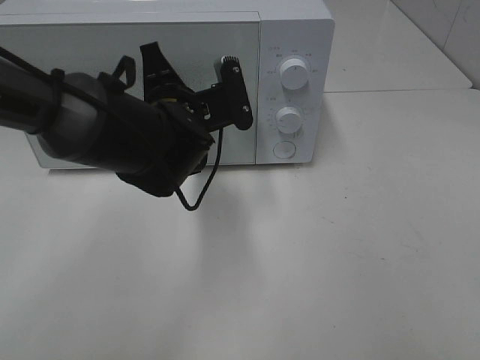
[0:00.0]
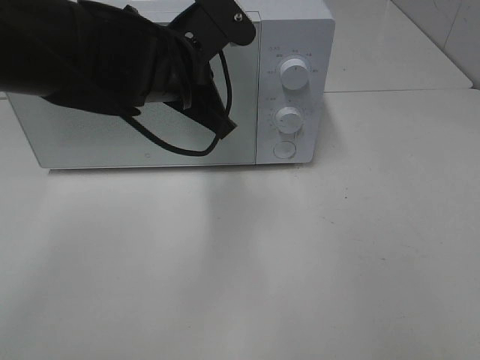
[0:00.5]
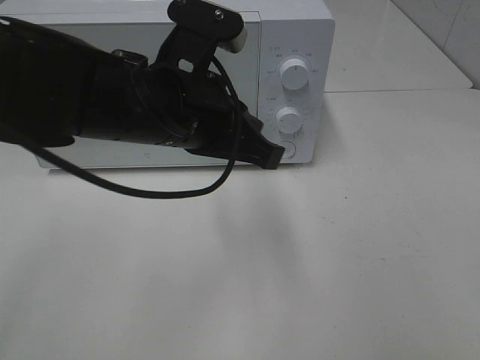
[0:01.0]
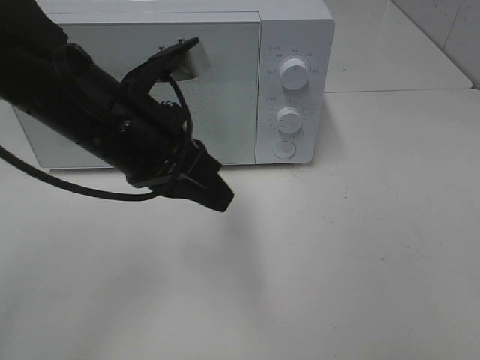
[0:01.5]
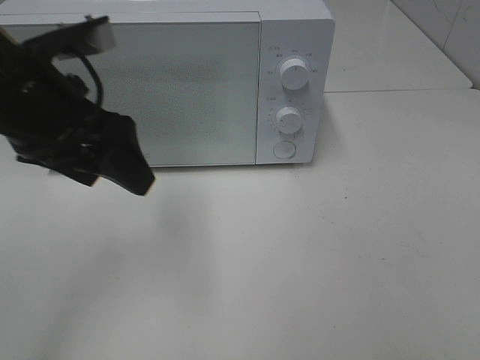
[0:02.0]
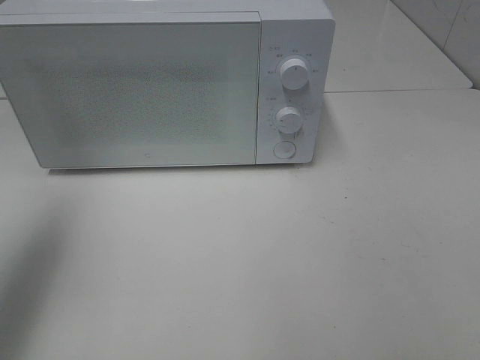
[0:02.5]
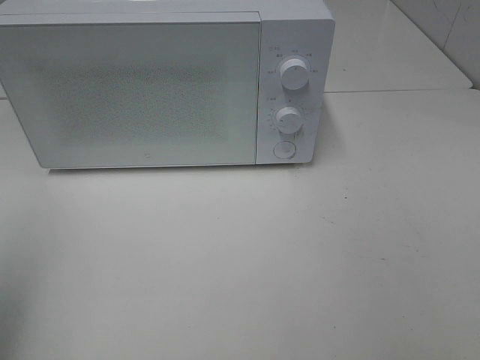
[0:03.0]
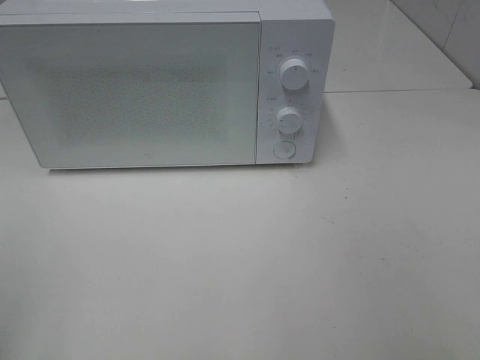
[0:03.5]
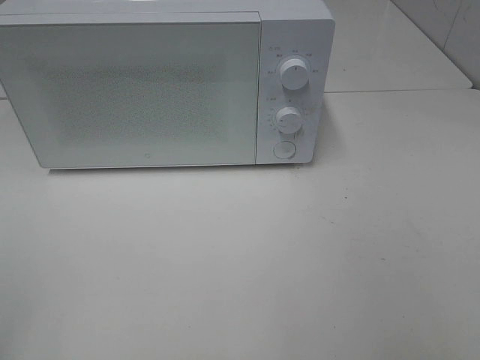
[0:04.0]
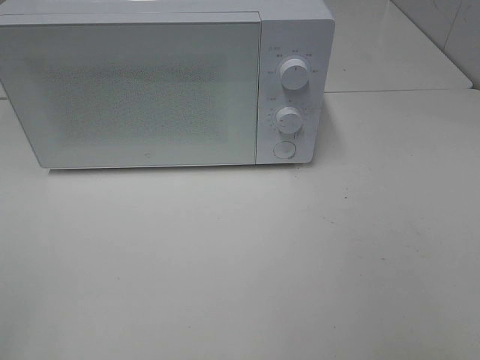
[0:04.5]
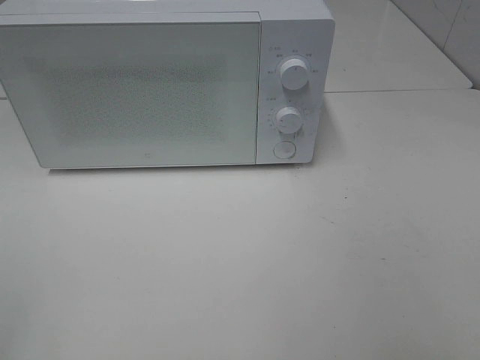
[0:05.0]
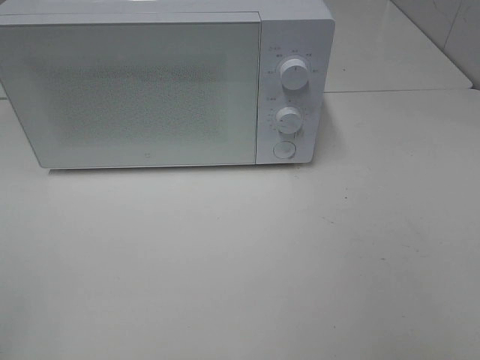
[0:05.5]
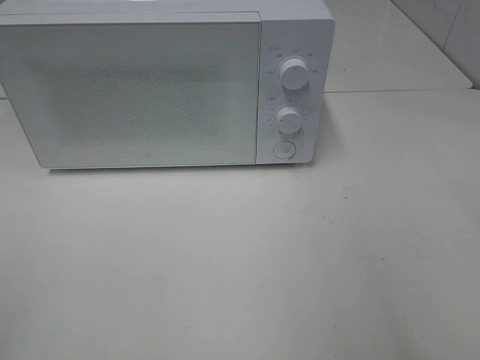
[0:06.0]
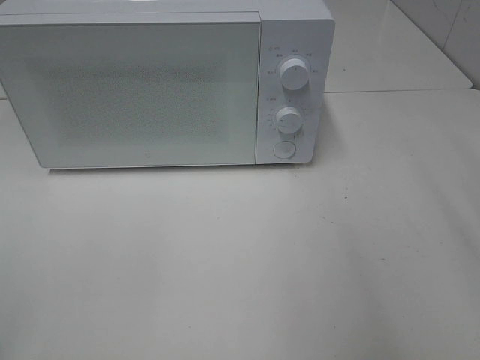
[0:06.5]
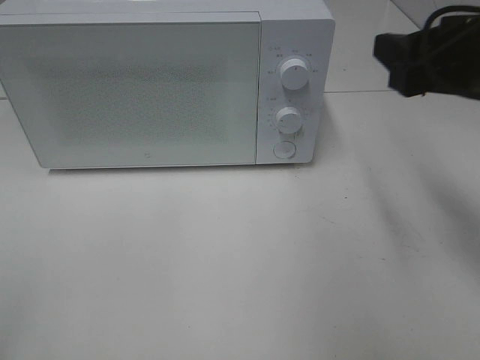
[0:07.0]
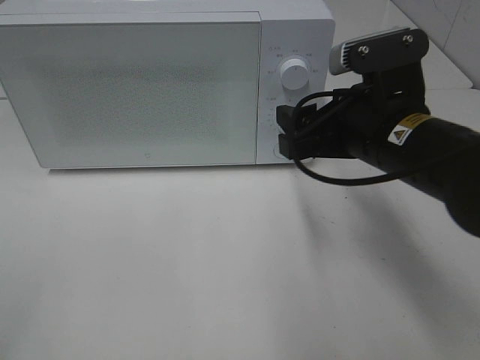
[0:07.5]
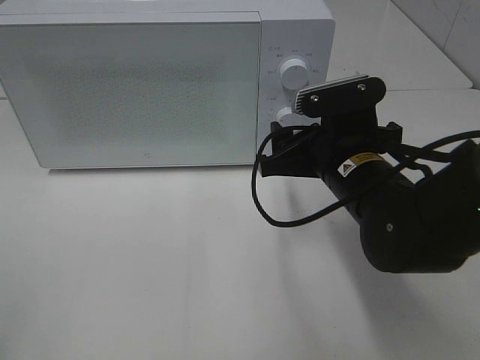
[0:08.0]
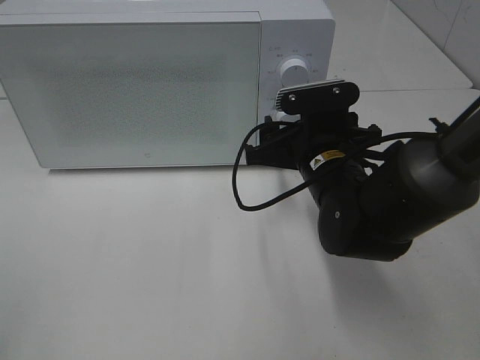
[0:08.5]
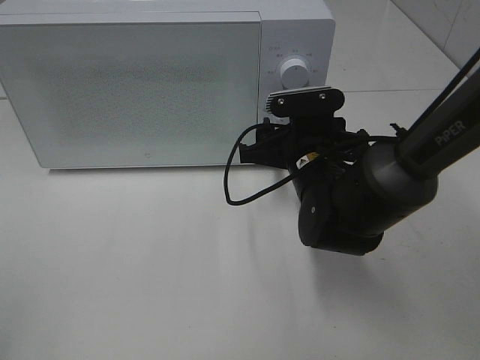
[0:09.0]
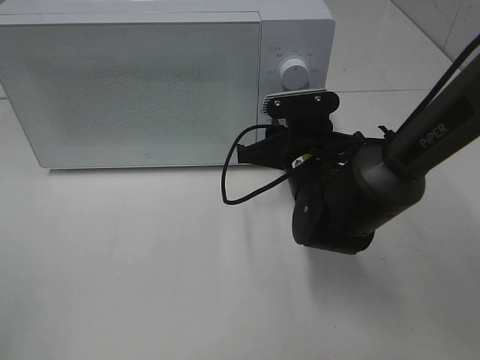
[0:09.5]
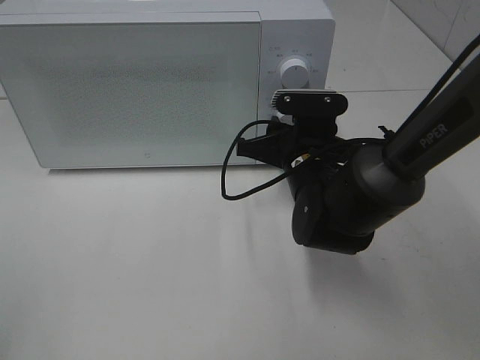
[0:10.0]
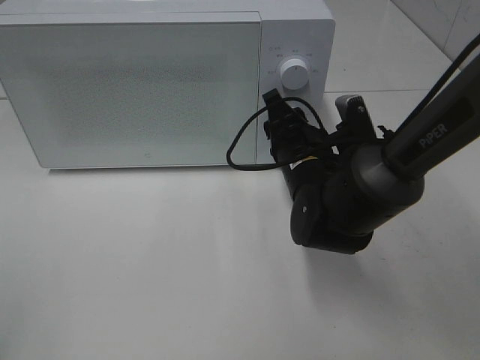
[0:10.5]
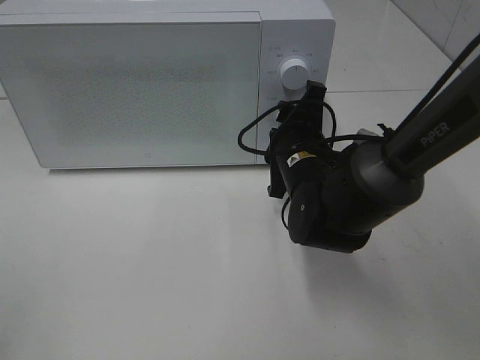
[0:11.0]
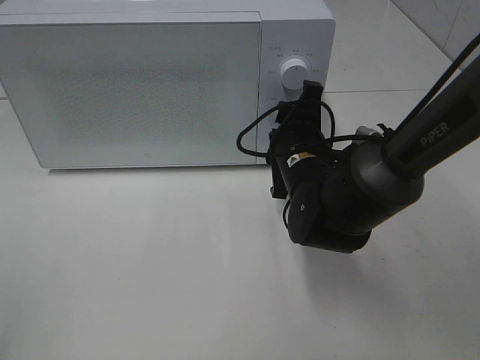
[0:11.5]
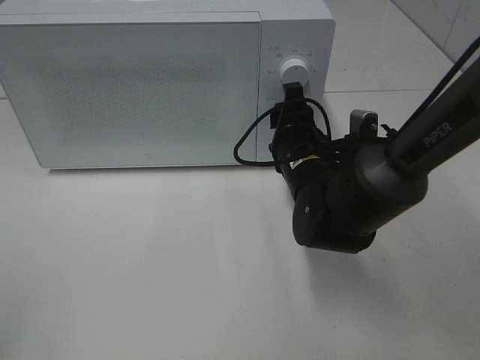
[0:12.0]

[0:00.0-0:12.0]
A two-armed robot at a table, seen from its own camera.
Task of the whole recording: Heat Sandwich.
0:00.0 to 0:02.0: The left gripper goes about 15 cm upward, to the left and backward, and opens its fingers.
0:02.0 to 0:04.0: The left gripper travels backward and to the left by roughly 30 cm.
0:06.0 to 0:08.0: The right gripper moves forward, downward and to the left, roughly 30 cm.
0:08.0 to 0:10.0: The right gripper goes roughly 5 cm forward, and closes its fingers.

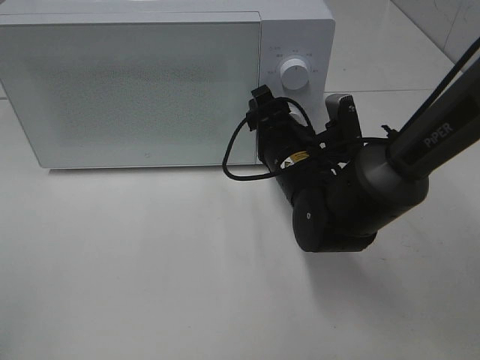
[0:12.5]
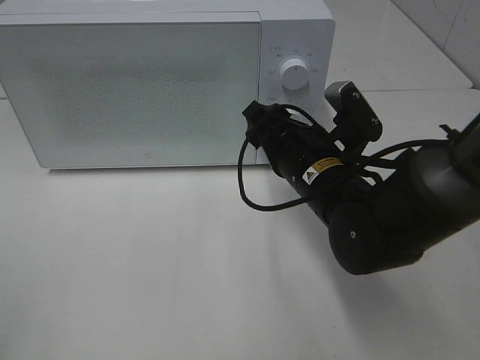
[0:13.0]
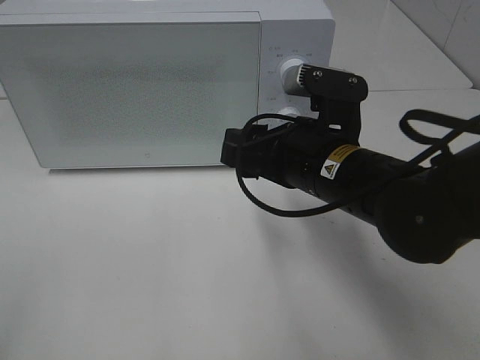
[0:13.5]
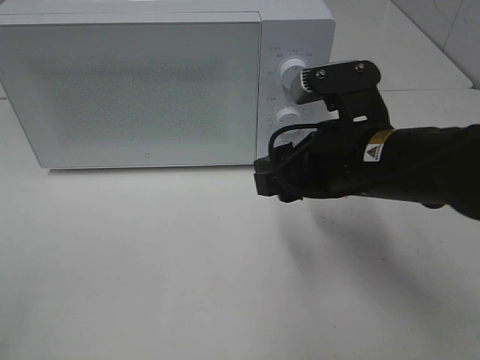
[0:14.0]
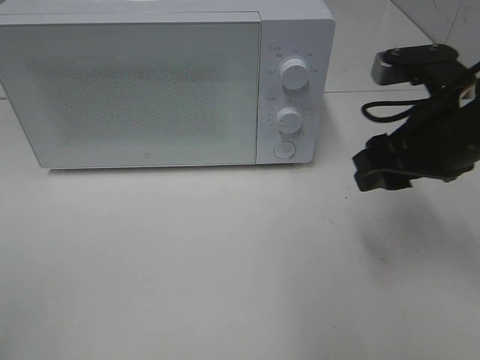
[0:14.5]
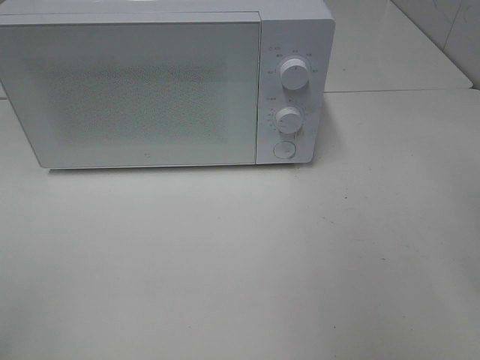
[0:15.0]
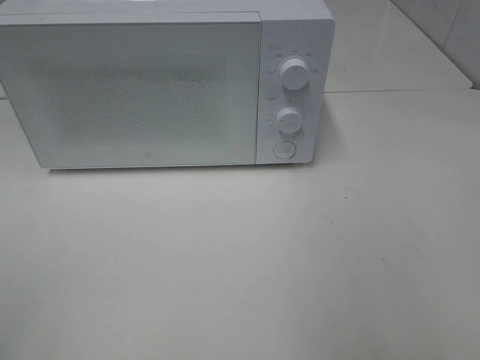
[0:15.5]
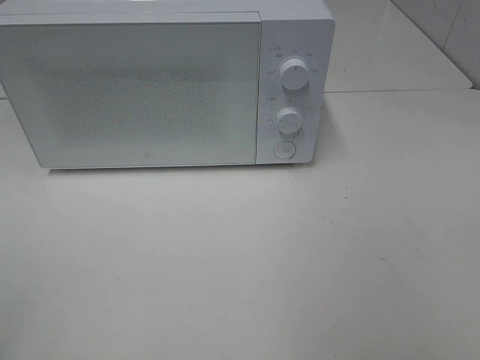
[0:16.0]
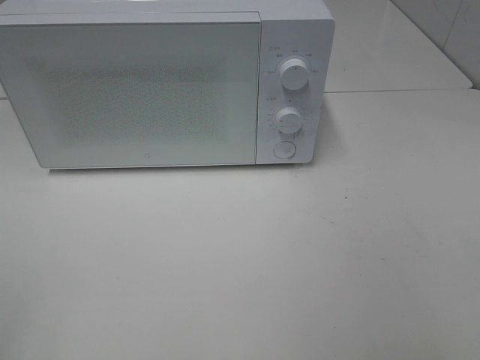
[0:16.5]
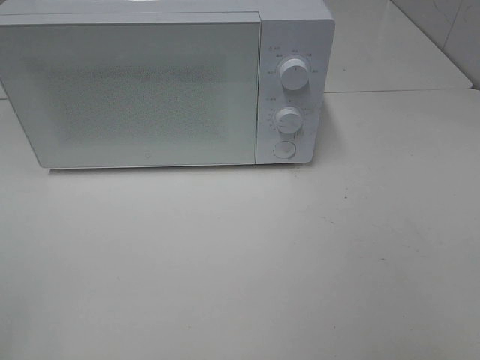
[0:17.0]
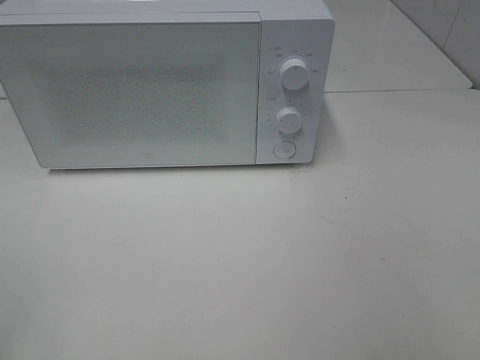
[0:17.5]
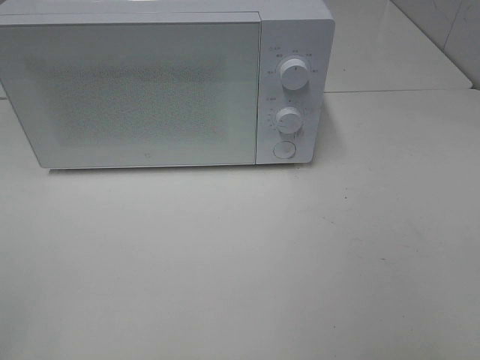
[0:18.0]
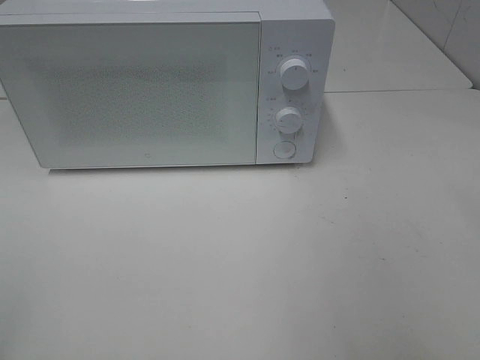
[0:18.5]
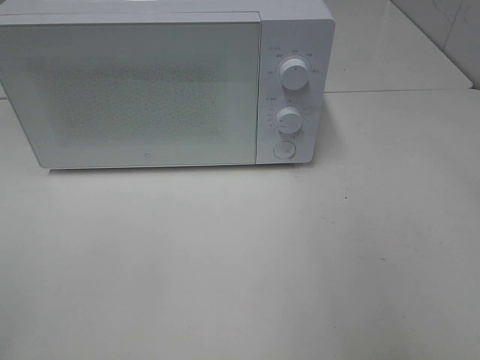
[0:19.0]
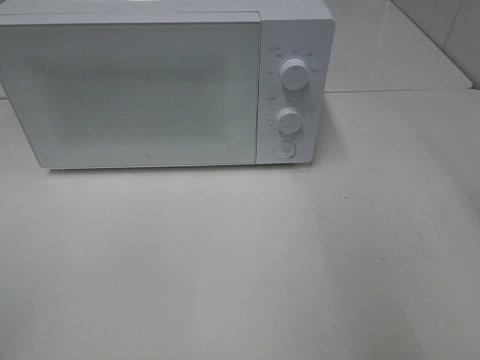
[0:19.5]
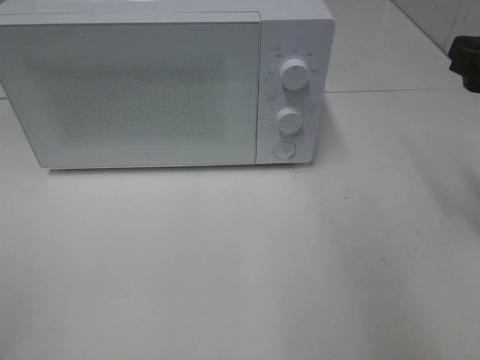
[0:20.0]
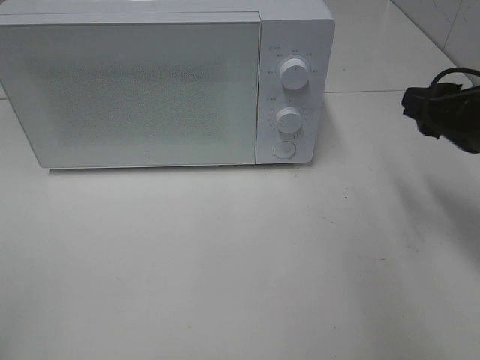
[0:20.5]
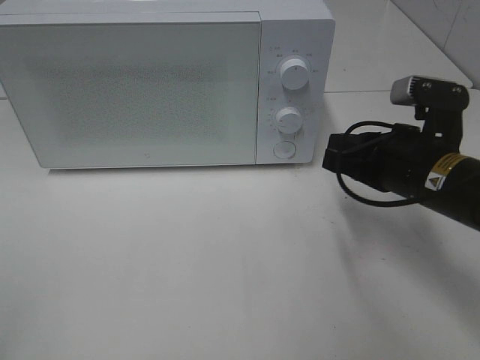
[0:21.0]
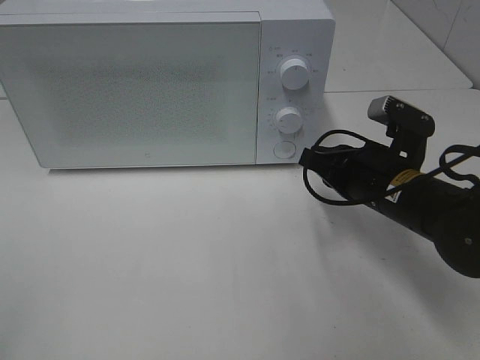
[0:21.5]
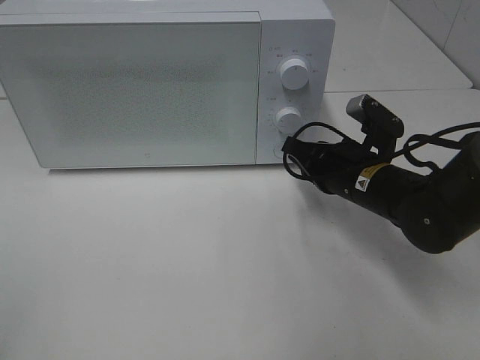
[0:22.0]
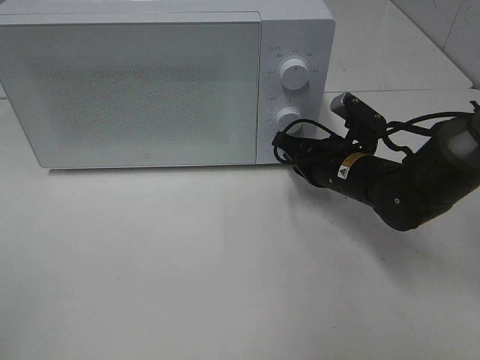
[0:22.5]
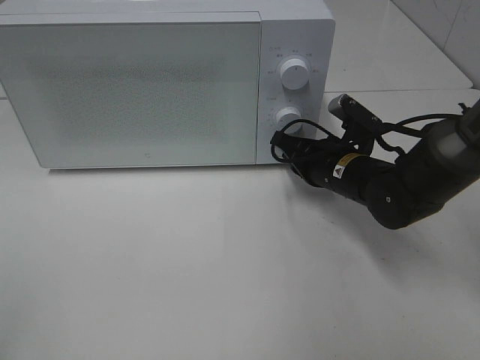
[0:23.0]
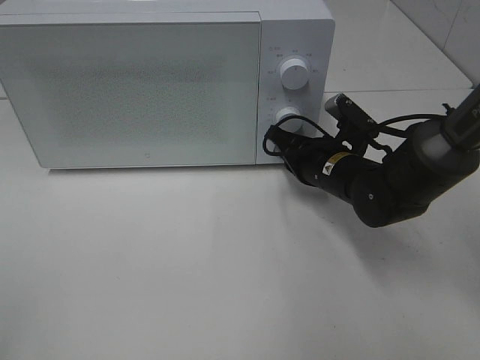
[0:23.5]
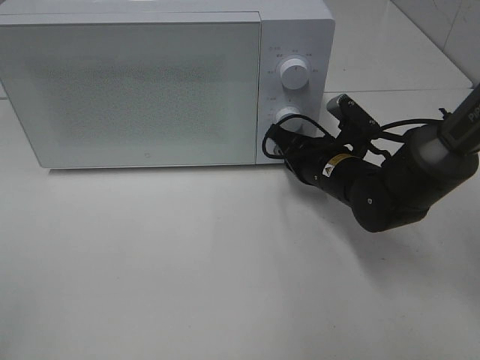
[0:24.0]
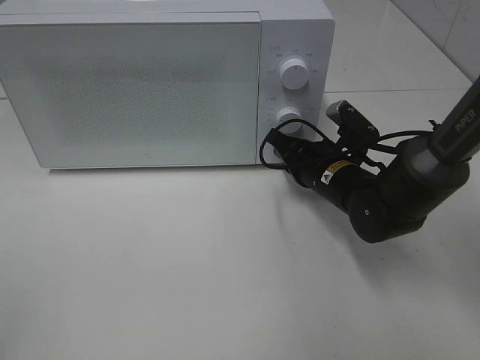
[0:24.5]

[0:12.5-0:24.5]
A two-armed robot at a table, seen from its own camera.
Task of the whole recording: Heat Sandwich.
0:12.5 to 0:14.5: The right gripper shifts approximately 20 cm to the right, upward and backward.
0:14.5 to 0:16.5: The right gripper is displaced backward by roughly 25 cm.
0:18.5 to 0:20.5: The right gripper shifts roughly 20 cm forward and downward.
0:20.5 to 0:22.5: The right gripper heads downward, to the left and forward, covering roughly 20 cm, and closes its fingers.
0:22.5 to 0:24.5: The grippers move only a little.

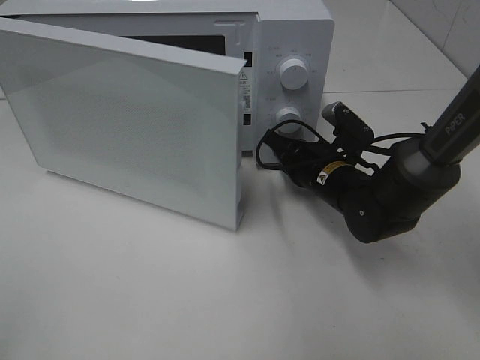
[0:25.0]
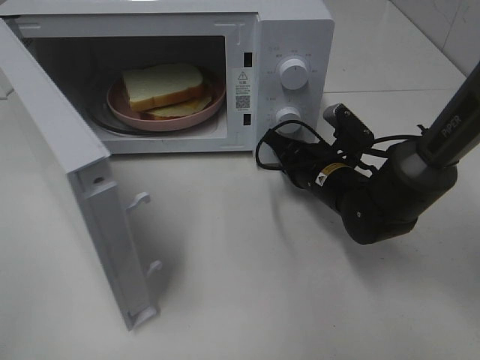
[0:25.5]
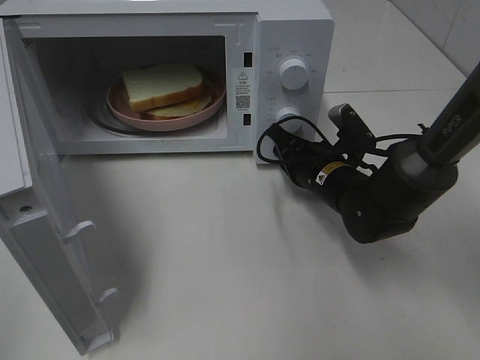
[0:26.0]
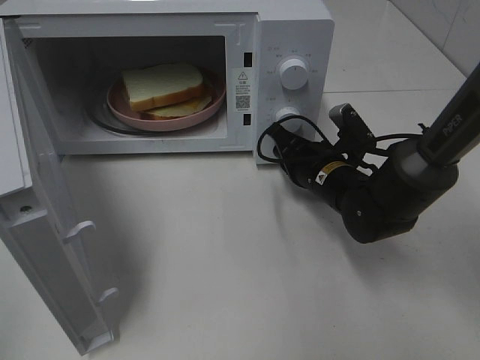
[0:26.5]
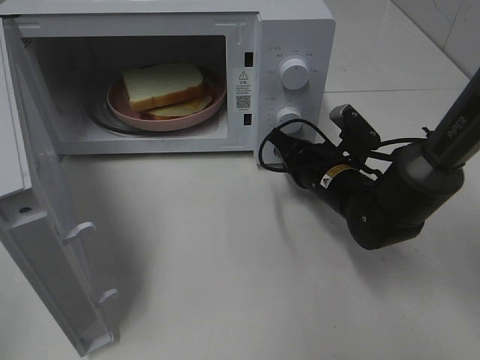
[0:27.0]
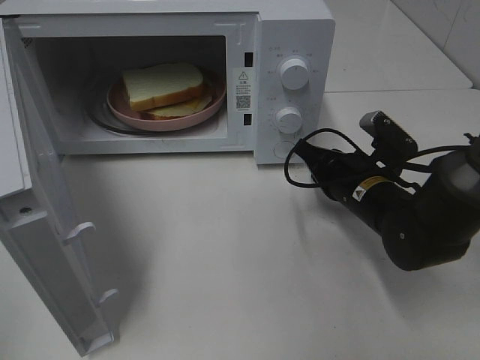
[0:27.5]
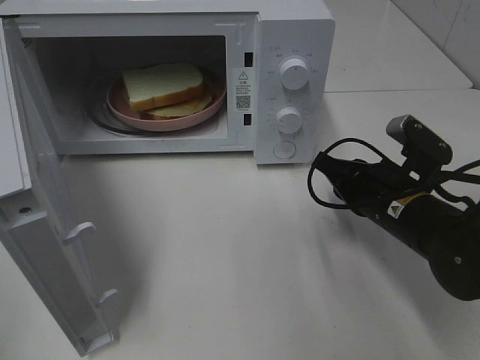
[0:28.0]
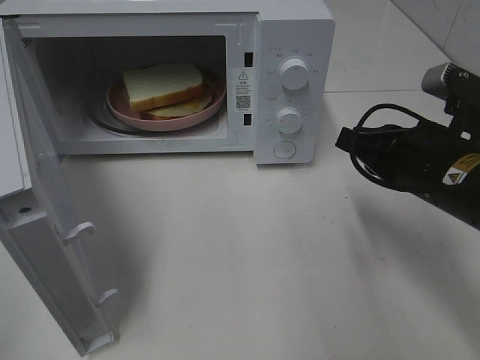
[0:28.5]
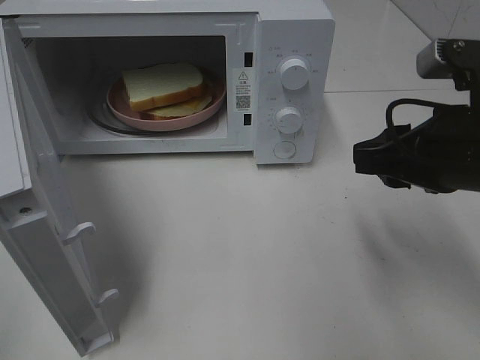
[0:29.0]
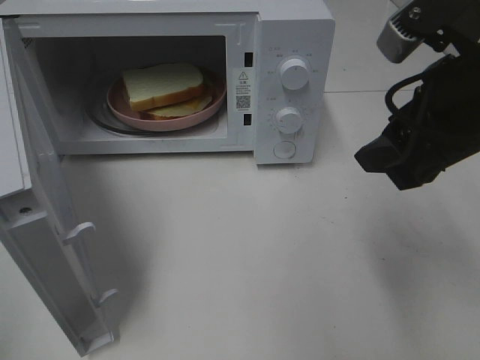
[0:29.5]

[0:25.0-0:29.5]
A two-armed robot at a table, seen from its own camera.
Task of the whole recording: Heat Sandwich.
Step, 0:25.0 to 0:27.5: Right hand: press the switch.
0:27.0 to 0:29.5: The right gripper shifts approximately 25 cm upward and backward, and opens its fingers.
